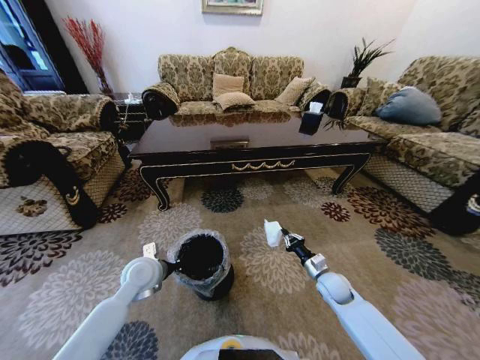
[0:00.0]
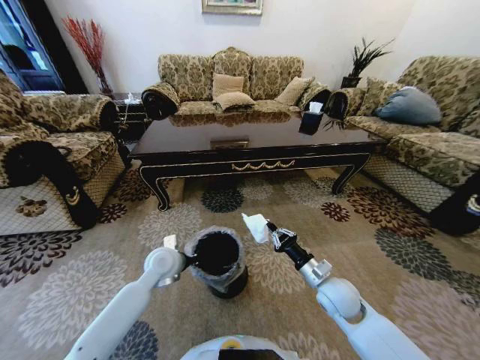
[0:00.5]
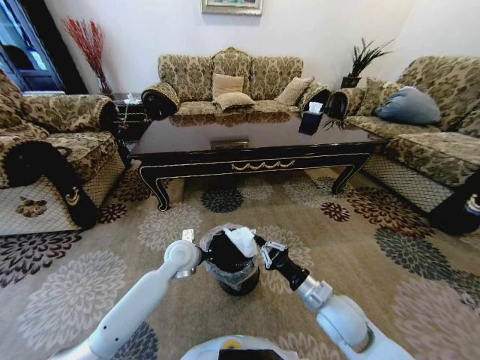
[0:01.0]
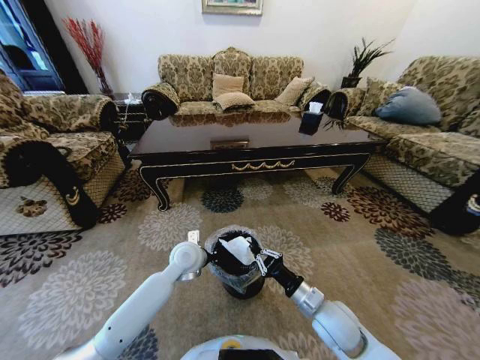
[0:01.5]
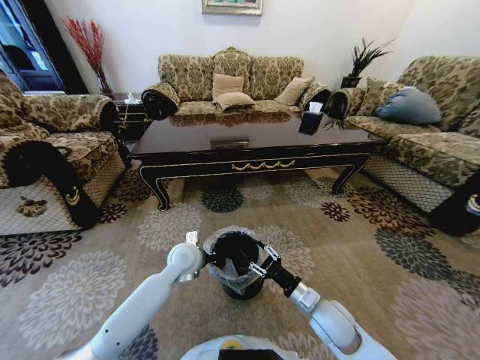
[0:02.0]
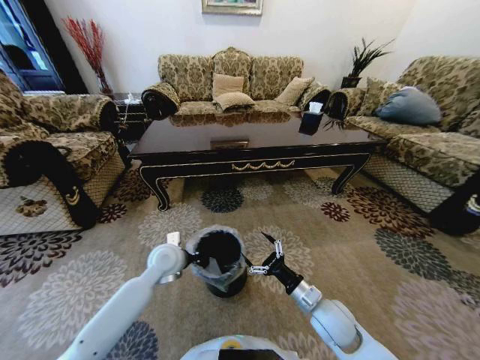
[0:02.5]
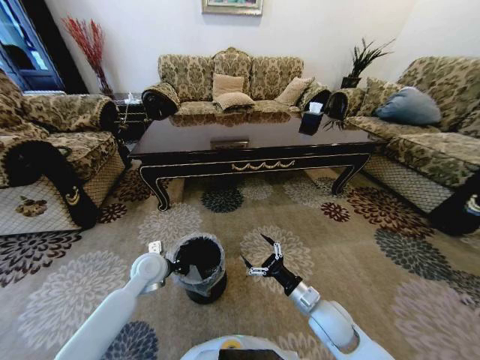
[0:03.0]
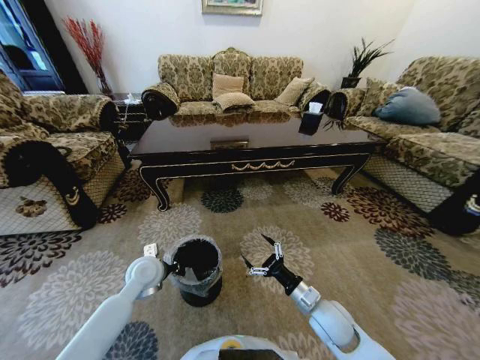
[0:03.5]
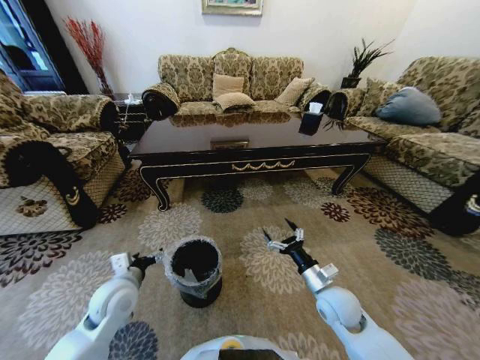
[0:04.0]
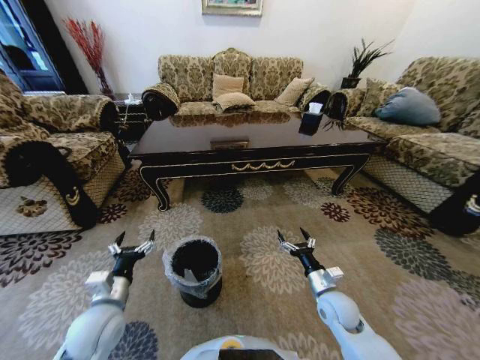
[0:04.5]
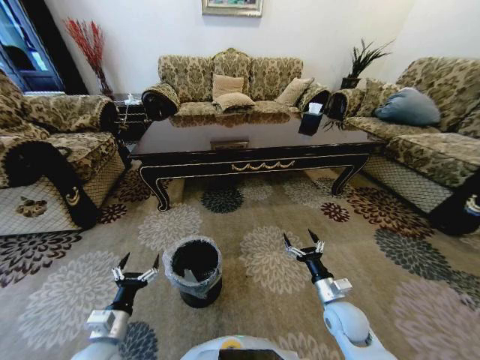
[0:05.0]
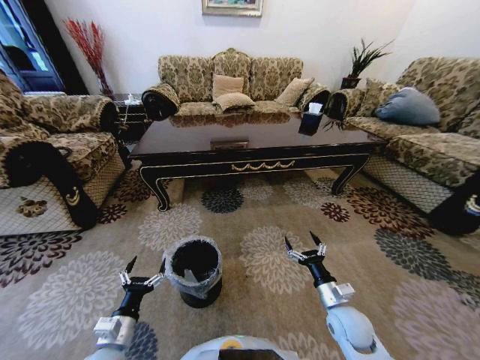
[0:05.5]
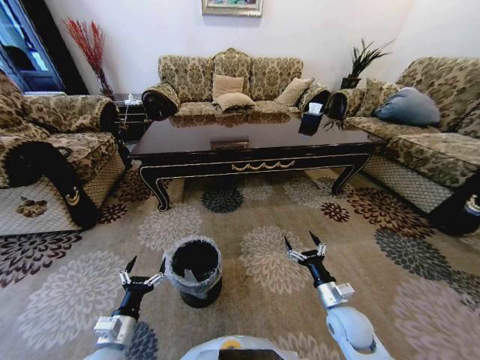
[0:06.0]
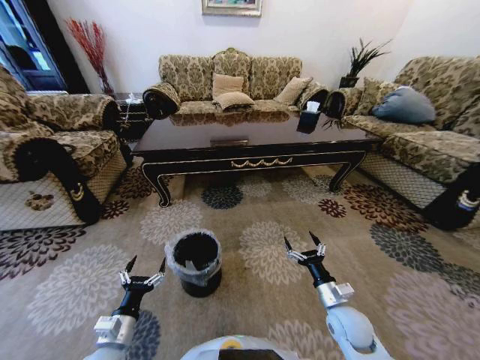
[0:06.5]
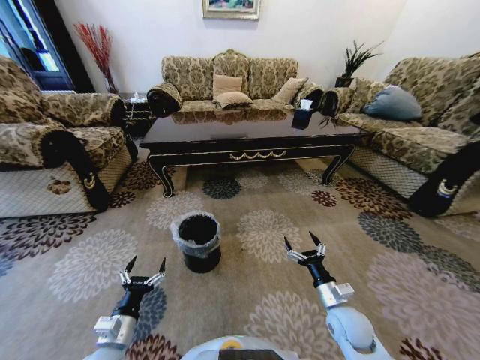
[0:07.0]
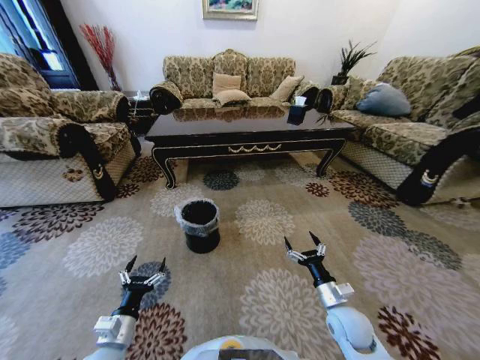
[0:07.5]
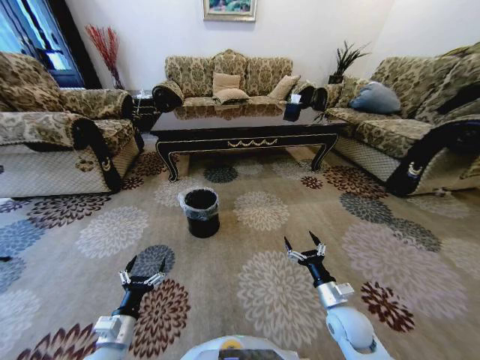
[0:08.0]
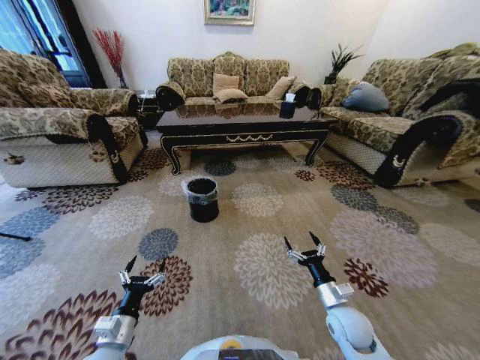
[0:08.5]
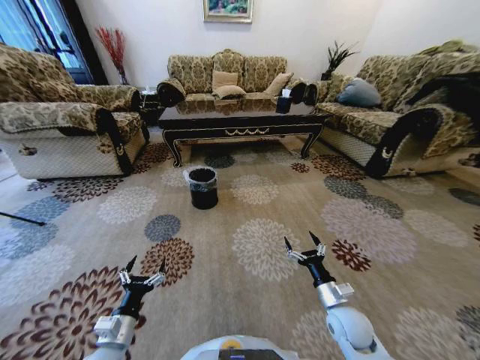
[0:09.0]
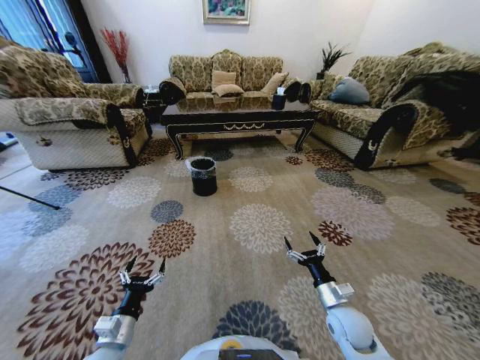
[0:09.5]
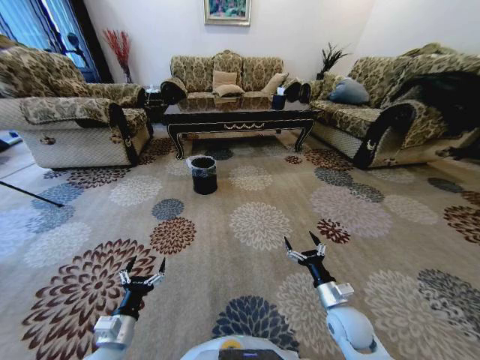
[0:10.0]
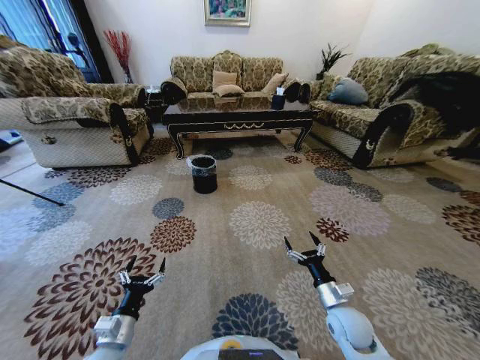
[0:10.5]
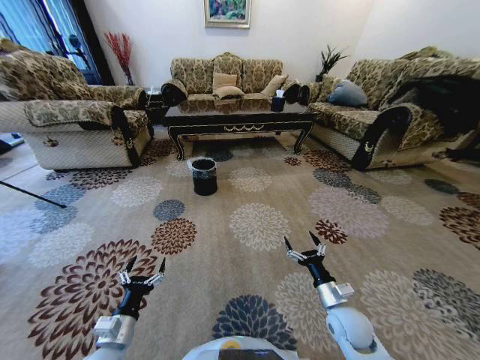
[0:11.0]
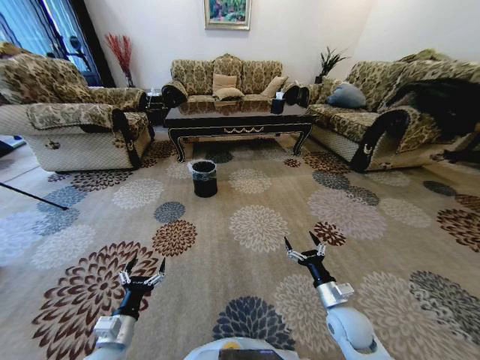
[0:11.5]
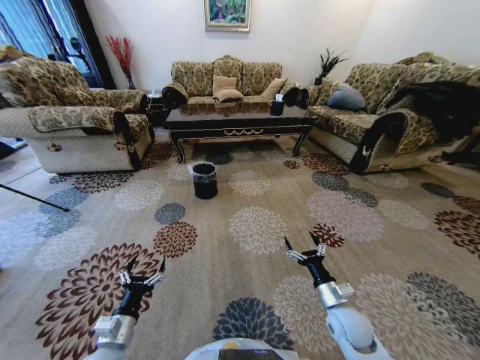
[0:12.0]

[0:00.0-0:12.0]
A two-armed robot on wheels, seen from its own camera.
Task of the whole recording: Move to the front of the table and pick up the trash from the floor, then place it into the trash bin.
0:00.0 to 0:02.0: The right gripper shifts approximately 15 cm backward, to the left and upward, and opens its fingers, while the left gripper shifts about 10 cm to the right.
0:02.0 to 0:04.0: The right gripper opens its fingers; the left gripper travels to the left and backward by approximately 20 cm, and opens its fingers.
0:04.0 to 0:06.0: The right gripper changes place by about 5 cm. The left gripper shifts roughly 15 cm backward and downward.

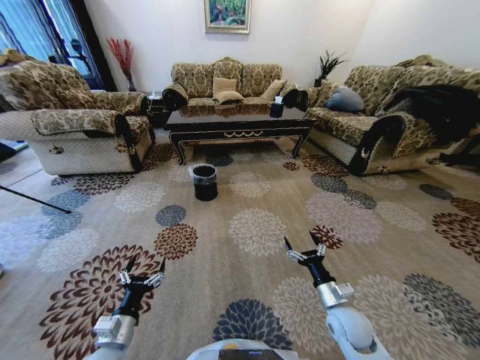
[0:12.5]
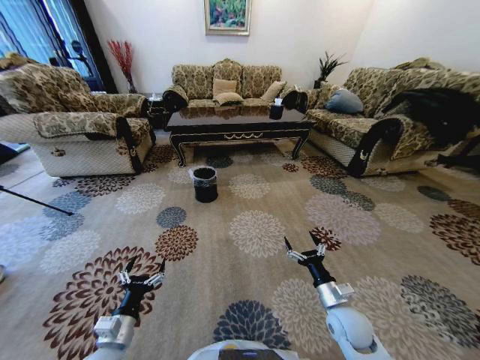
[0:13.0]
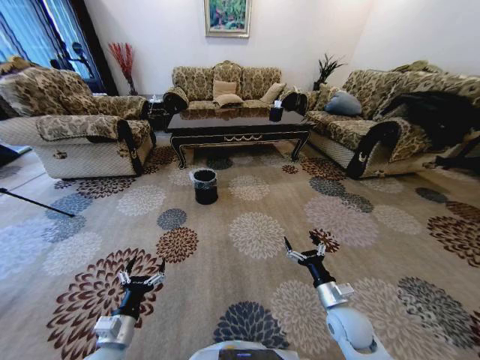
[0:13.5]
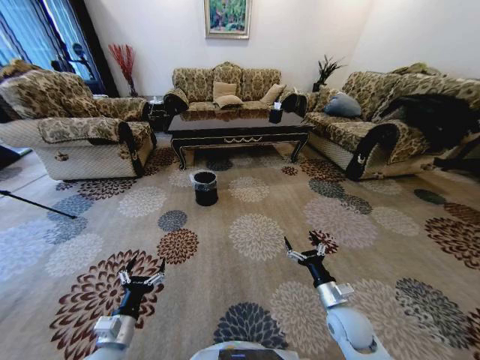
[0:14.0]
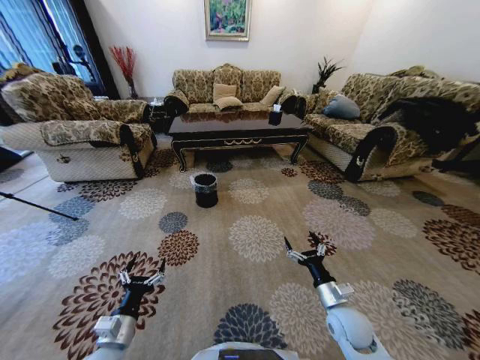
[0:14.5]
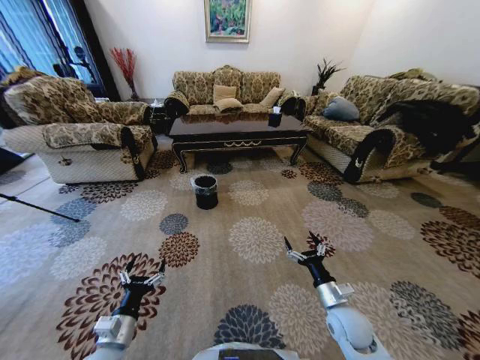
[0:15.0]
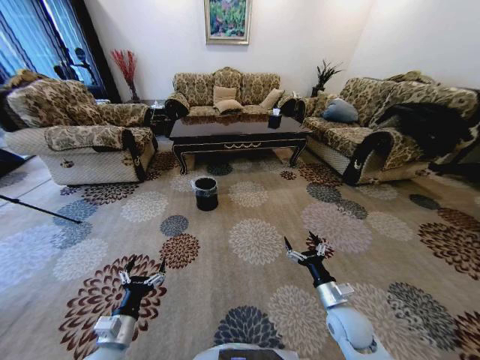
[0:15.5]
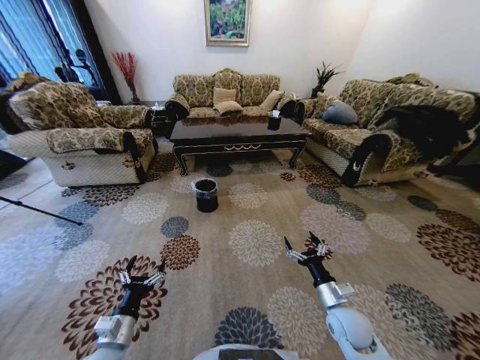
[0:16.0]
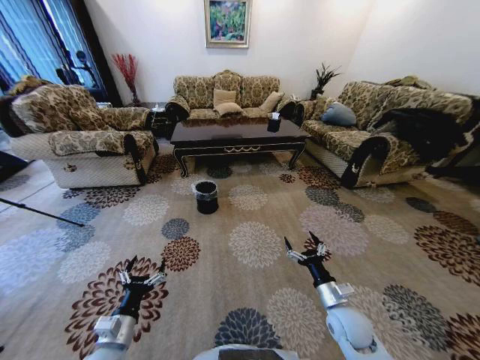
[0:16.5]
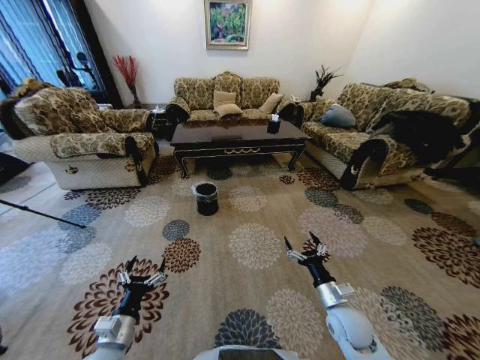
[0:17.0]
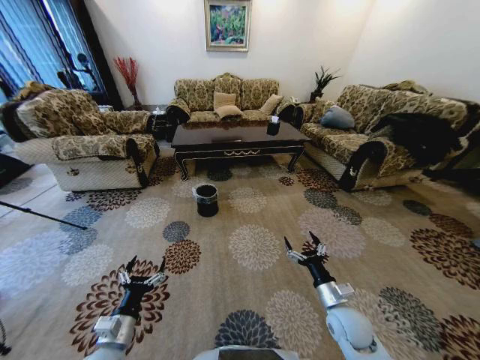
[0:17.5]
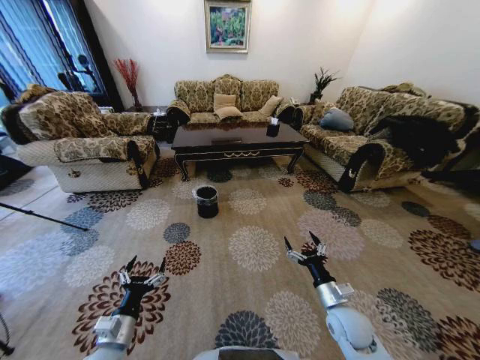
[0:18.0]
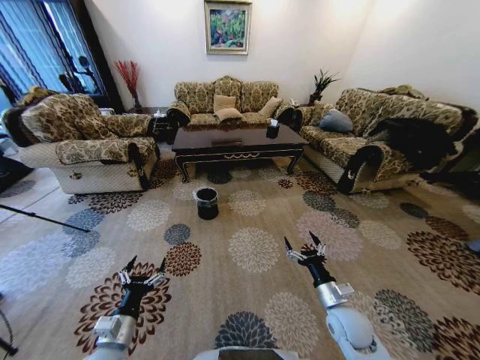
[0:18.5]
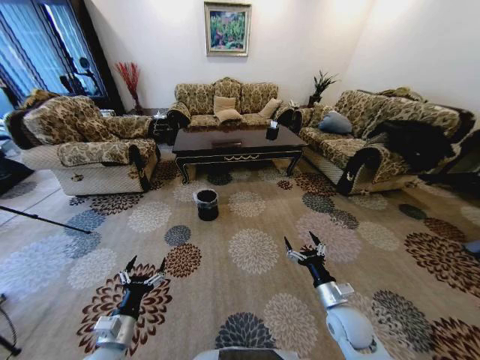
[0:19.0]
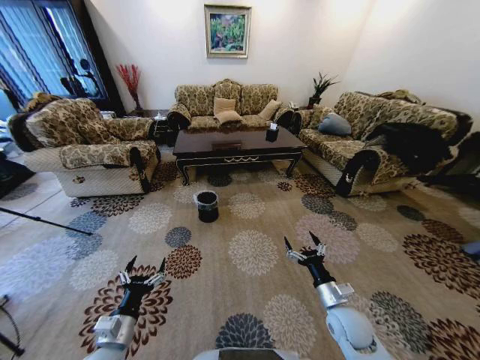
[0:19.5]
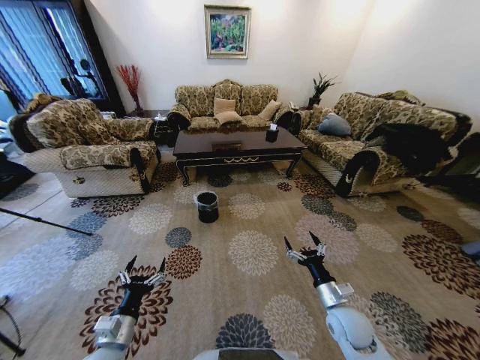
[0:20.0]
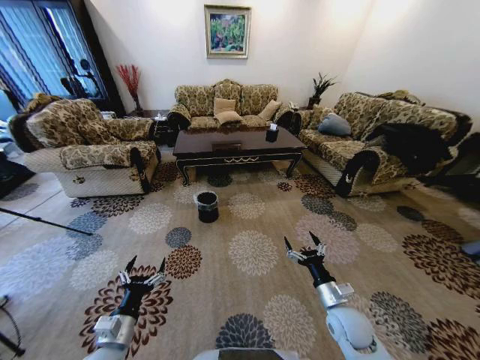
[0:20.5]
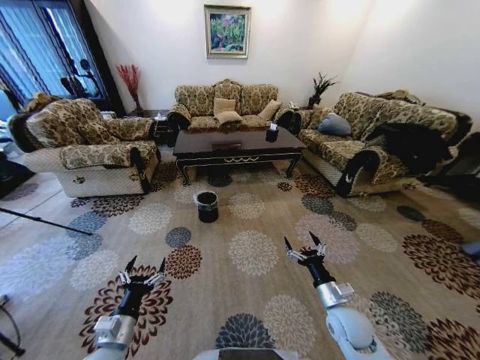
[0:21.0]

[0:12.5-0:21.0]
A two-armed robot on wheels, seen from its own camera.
Task of the whole recording: Move to the front of the table and pick up the trash from the floor, then place it into the trash bin.
0:19.0 to 0:21.0: The two grippers keep their place.
